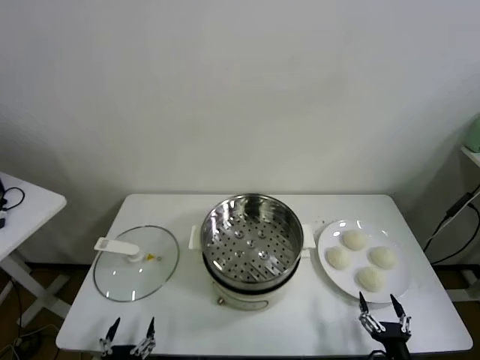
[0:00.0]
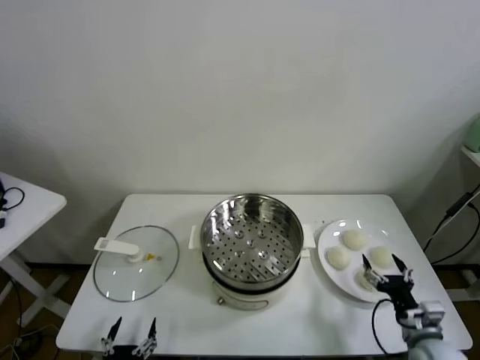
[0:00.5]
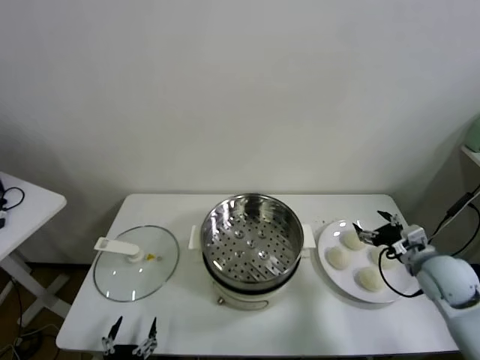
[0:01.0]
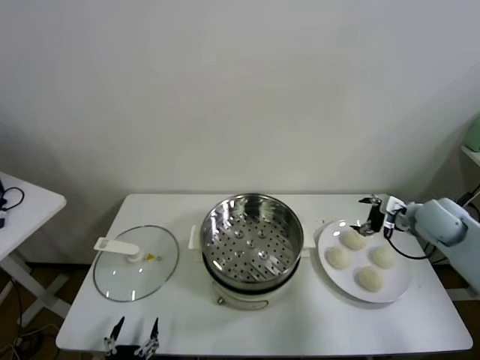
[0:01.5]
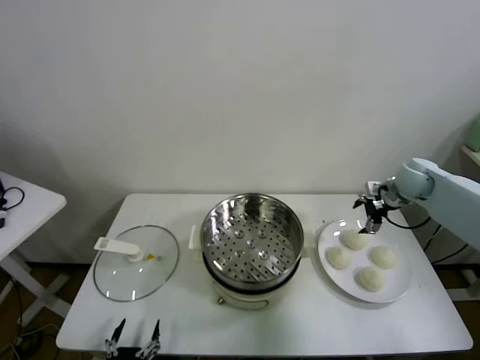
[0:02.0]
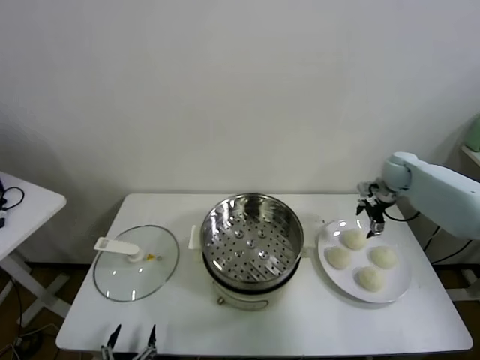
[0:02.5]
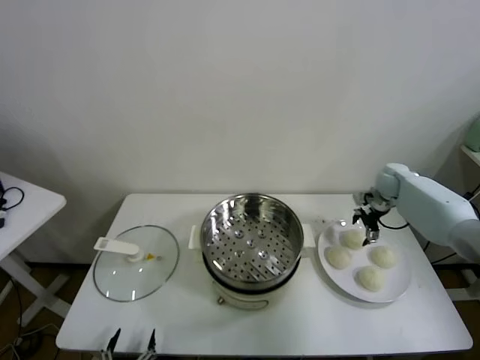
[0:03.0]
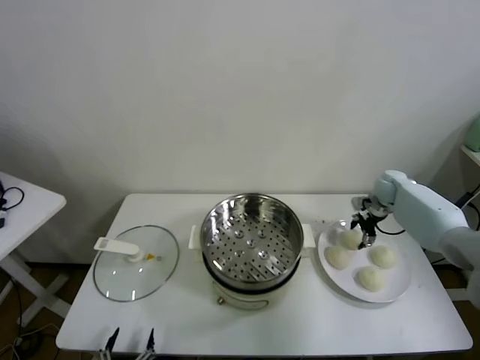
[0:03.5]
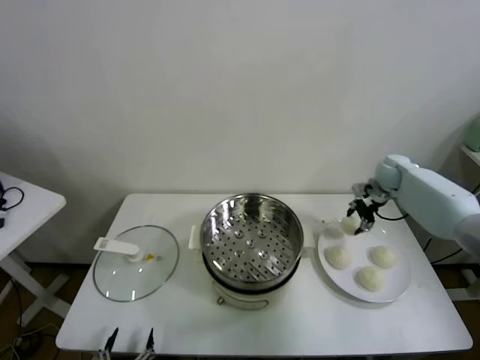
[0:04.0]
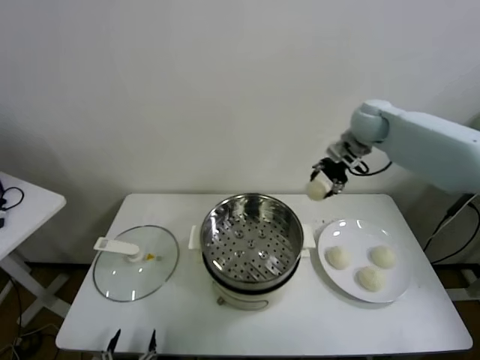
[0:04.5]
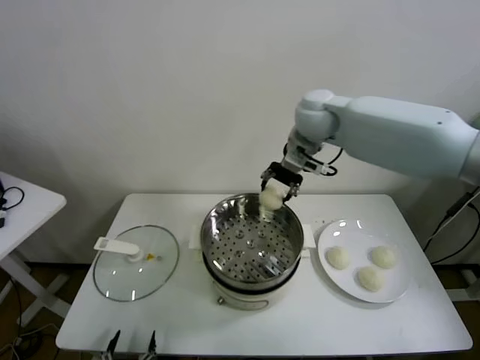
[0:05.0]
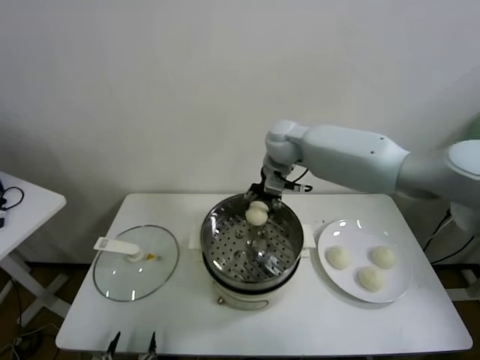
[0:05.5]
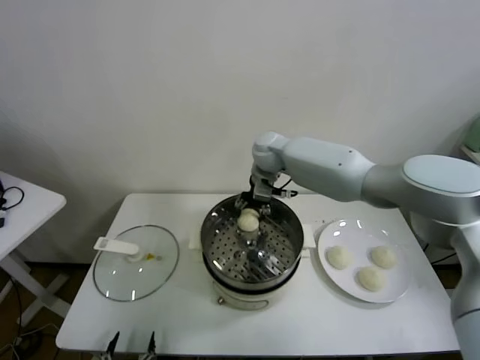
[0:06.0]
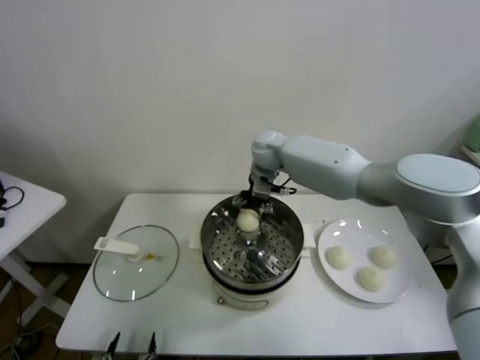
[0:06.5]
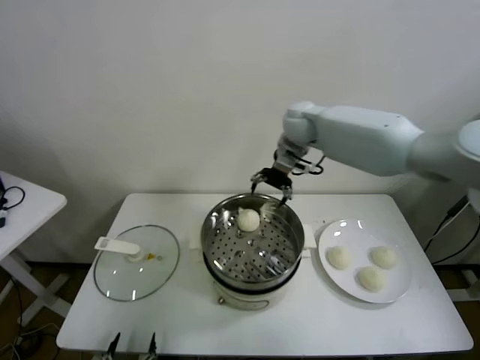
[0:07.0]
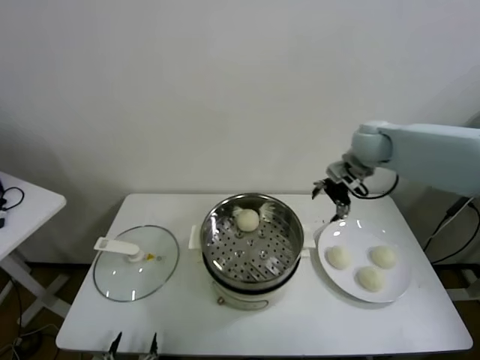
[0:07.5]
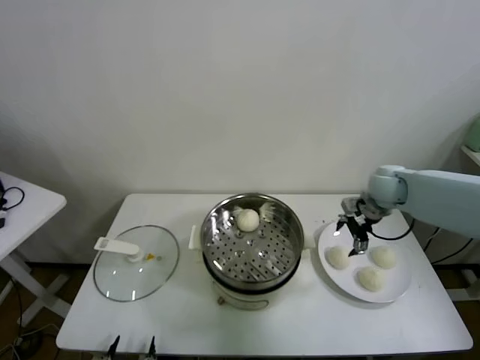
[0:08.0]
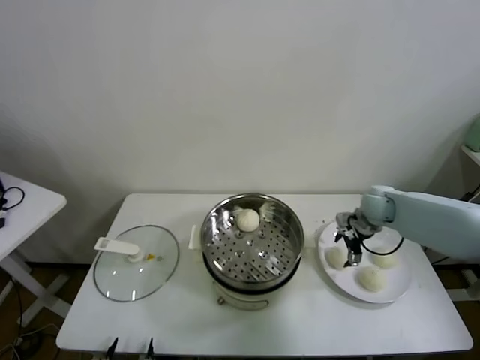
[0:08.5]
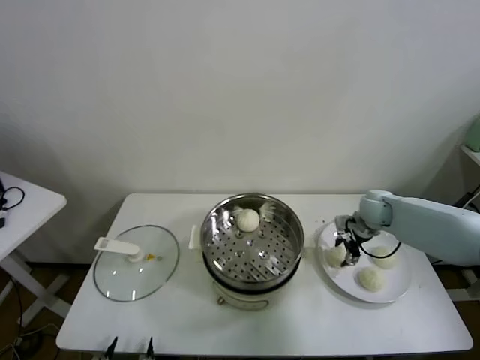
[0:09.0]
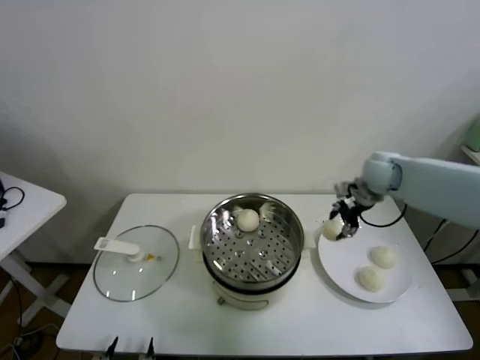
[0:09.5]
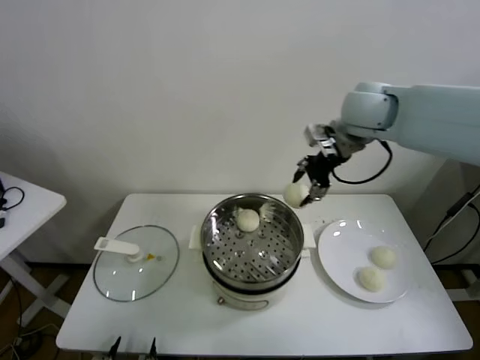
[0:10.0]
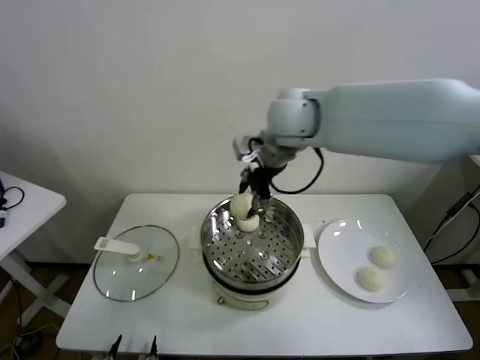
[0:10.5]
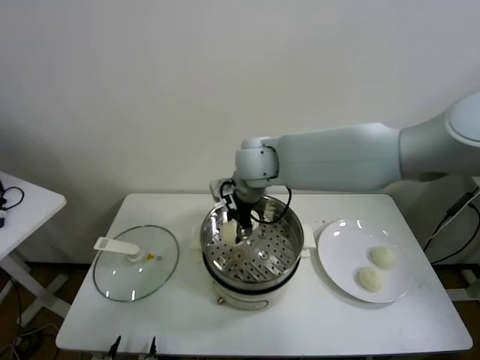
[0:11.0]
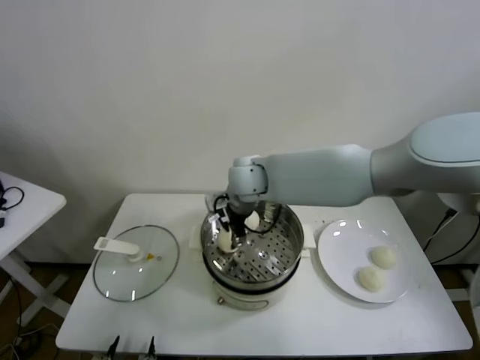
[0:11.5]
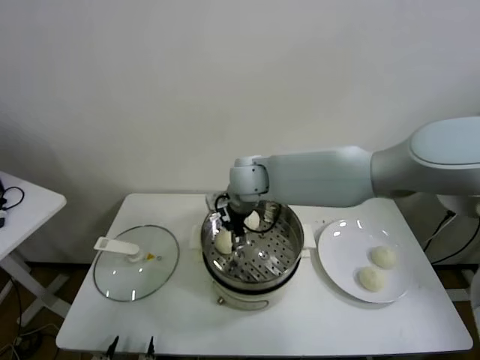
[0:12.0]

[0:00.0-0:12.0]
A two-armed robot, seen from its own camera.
Task of the whole recording: take steamed baozi put them in steamer.
Step, 0:00.0 to 0:03.5: Grasp the baozi in the plate with right gripper.
Step, 0:04.0 to 0:06.5: Place the baozi on the steamer with right gripper.
Step, 0:07.0 to 0:08.5: Grasp the baozi in the plate with right gripper.
Step, 0:09.0 to 0:11.5: Place the baozi on the steamer with right gripper.
0:02.0 to 0:04.0: The right gripper is displaced forward by some 5 cm, reaches some 10 cm downward, then returns, and closes its fingers.
0:04.0 to 0:06.0: The right gripper goes approximately 35 cm to the left.
0:06.0 to 0:08.0: The right gripper travels to the right by approximately 30 cm, and opens its fingers.
0:08.0 to 0:10.0: The right gripper moves upward and to the left, about 25 cm, and closes up.
0:10.0 to 0:12.0: The right gripper shifts about 25 cm to the left and downward, and opens up.

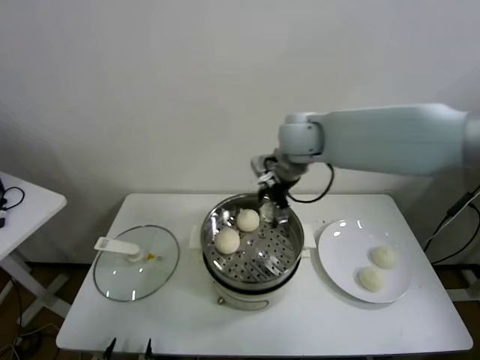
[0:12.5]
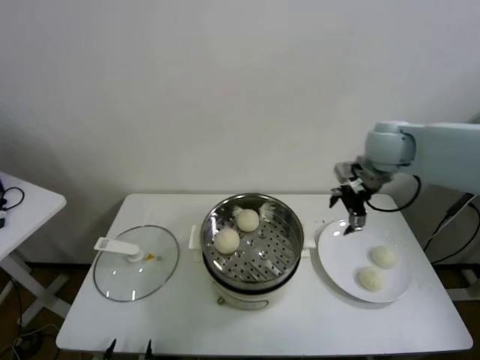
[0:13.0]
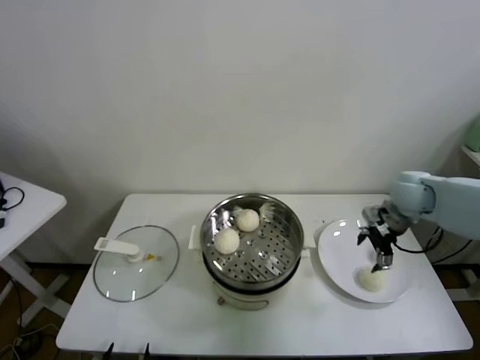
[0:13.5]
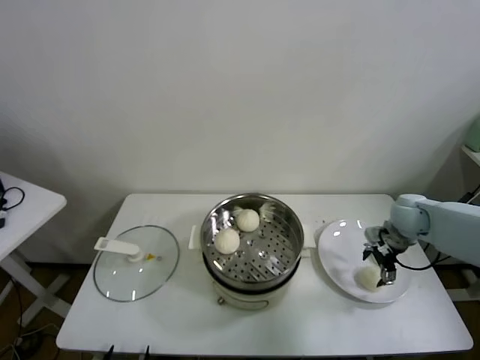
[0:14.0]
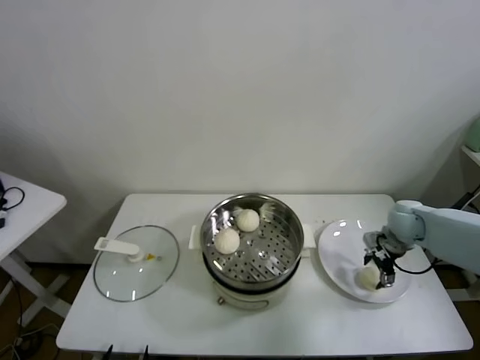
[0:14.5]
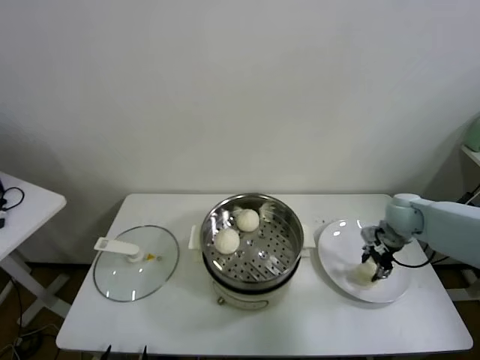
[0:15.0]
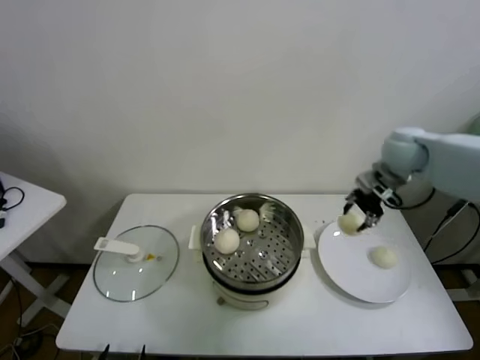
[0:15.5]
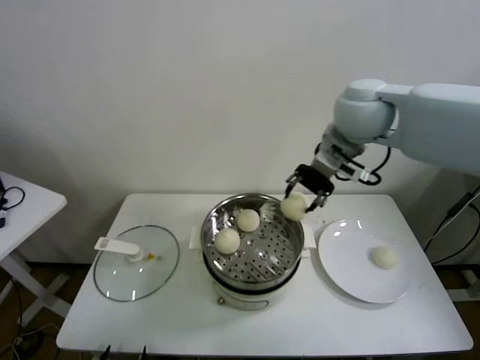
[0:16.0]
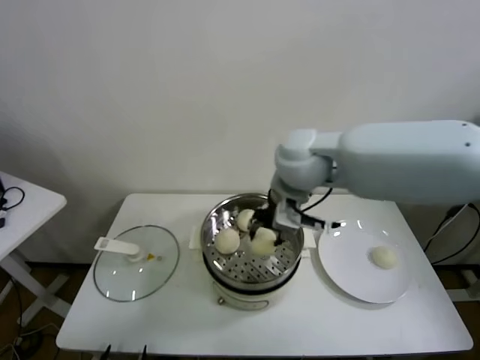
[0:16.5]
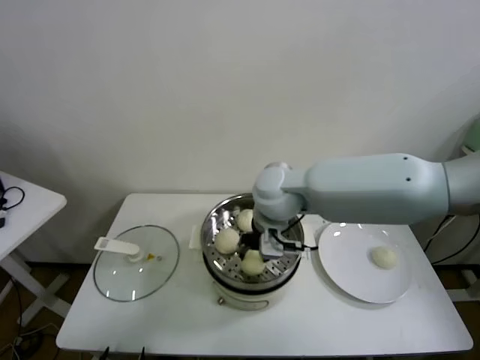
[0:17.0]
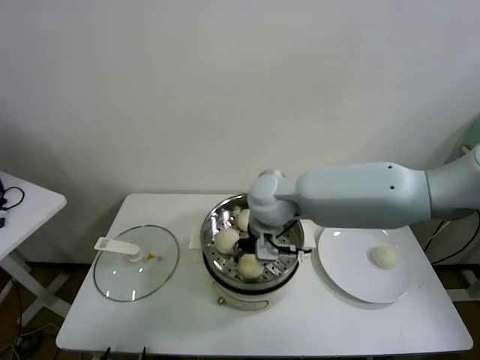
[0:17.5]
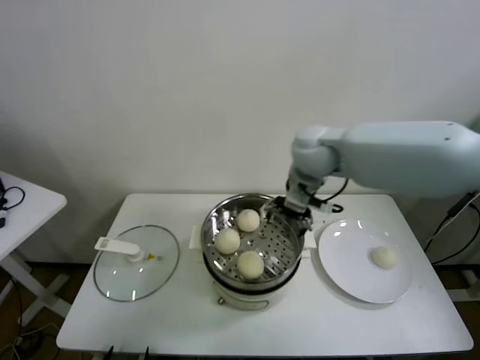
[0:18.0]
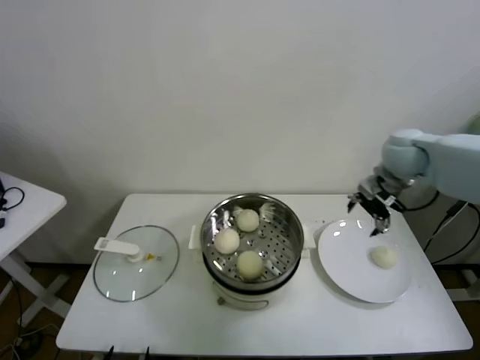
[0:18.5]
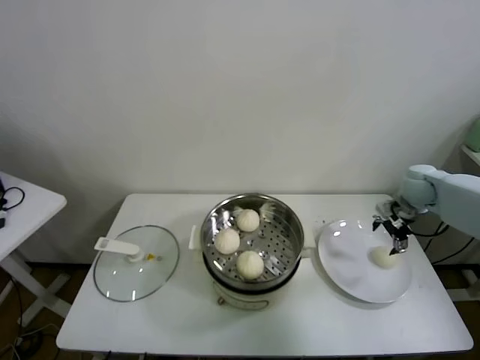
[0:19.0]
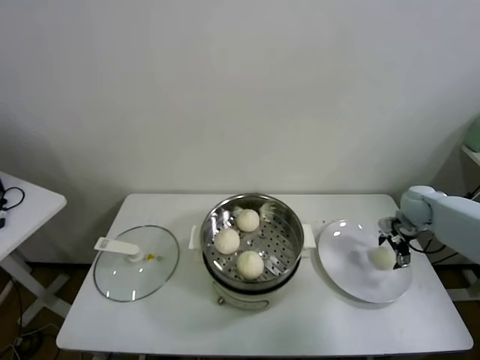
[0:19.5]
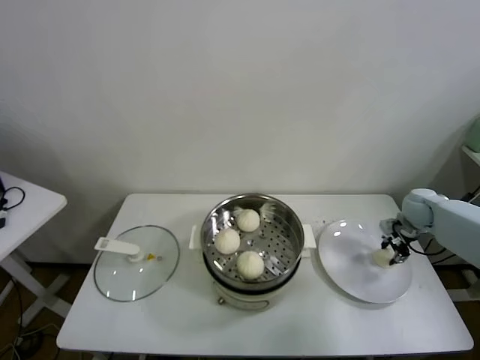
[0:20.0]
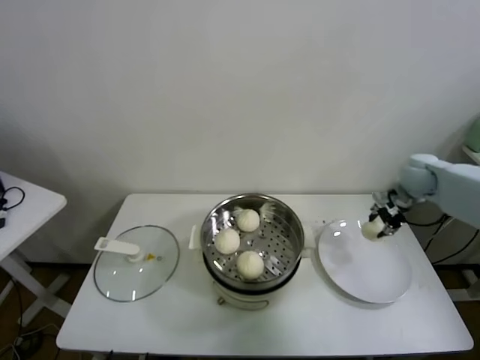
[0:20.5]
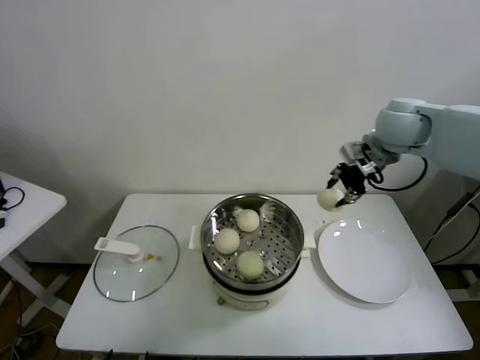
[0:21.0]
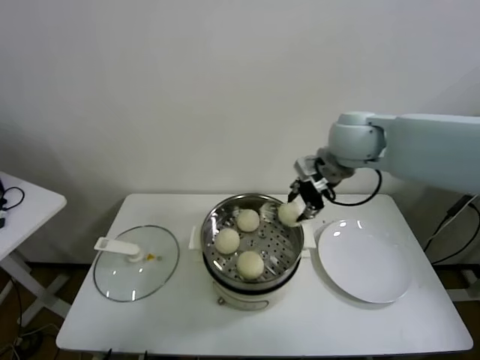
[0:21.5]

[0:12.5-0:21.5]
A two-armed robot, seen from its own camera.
Task of the whole recording: take steamed baozi put them in steamer.
Step, 0:12.5 to 0:14.5: Grasp the baozi in the plate with right gripper.
Step, 0:15.0 to 0:17.5: Place the baozi on the steamer with right gripper.
Step, 0:18.0 to 0:19.5: Grasp the baozi in the plate with right gripper.
0:12.5 to 0:14.5: The right gripper is displaced to the right and downward by roughly 35 cm.
0:14.5 to 0:17.0: The right gripper heads to the left and upward, covering about 40 cm, and closes its fingers.
0:17.0 to 0:19.5: The right gripper is displaced to the right by about 40 cm, and opens its fingers.
0:19.5 to 0:21.5: The right gripper goes about 35 cm to the left and upward, and closes up.

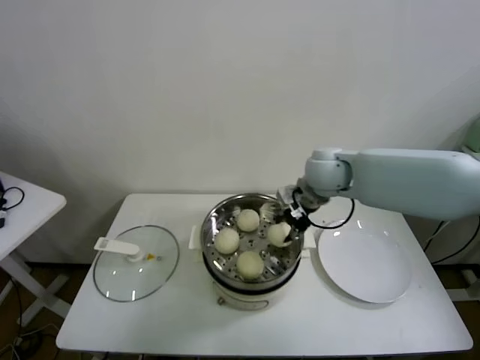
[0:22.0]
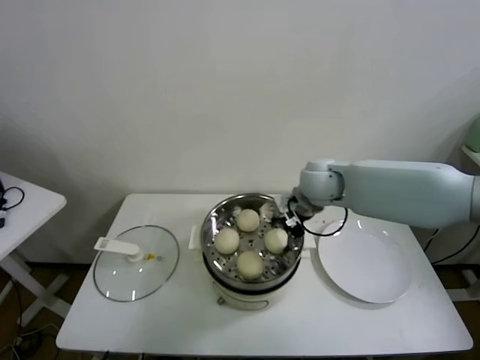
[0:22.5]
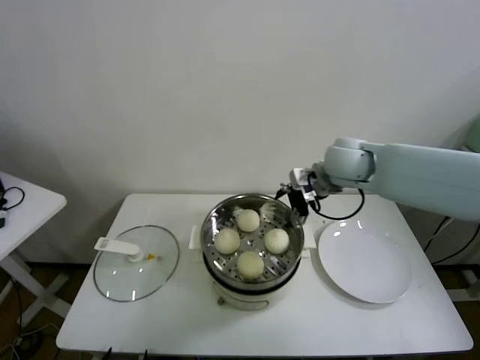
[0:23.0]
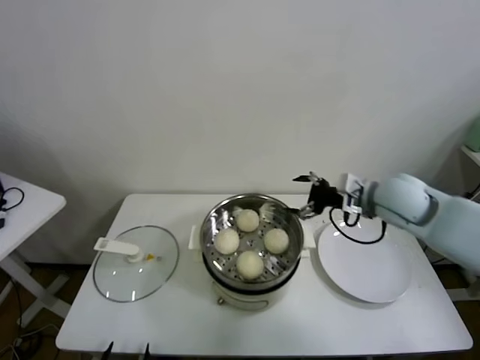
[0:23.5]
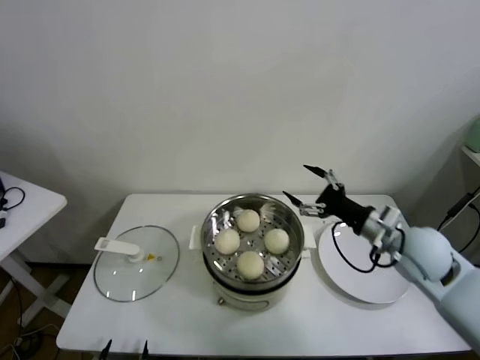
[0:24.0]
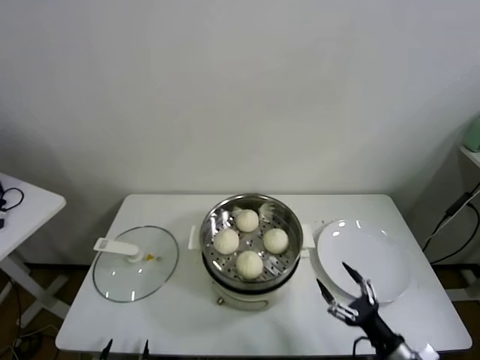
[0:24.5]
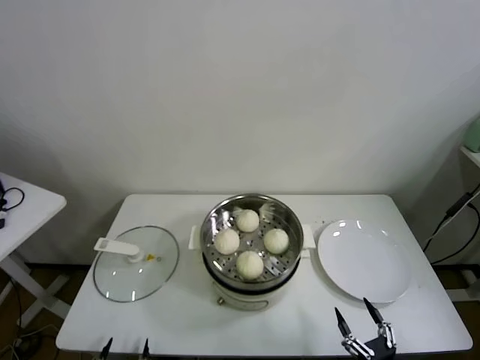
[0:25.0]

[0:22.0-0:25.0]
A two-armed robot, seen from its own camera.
Task of the whole recording: take steamed baozi put them in steamer.
0:22.0 to 0:23.5: The right gripper is displaced to the right and backward by about 15 cm, and opens.
0:23.5 to 0:25.0: The right gripper travels backward and downward by approximately 50 cm.
